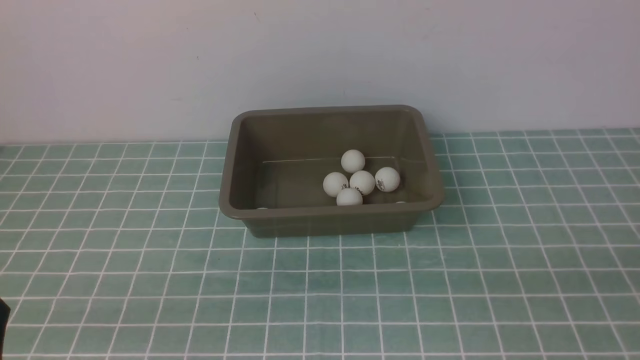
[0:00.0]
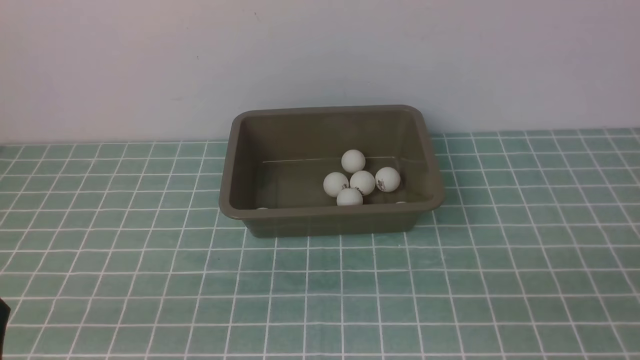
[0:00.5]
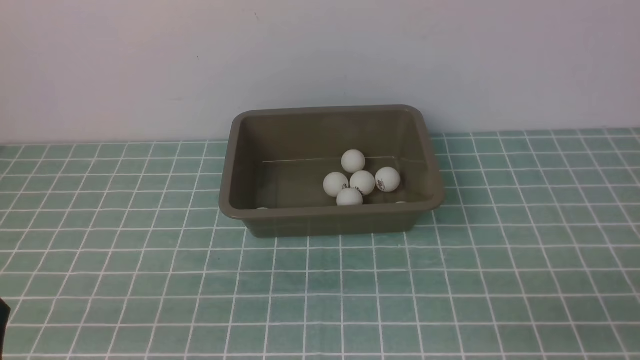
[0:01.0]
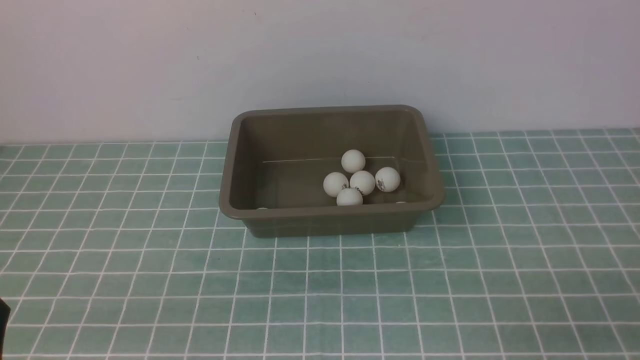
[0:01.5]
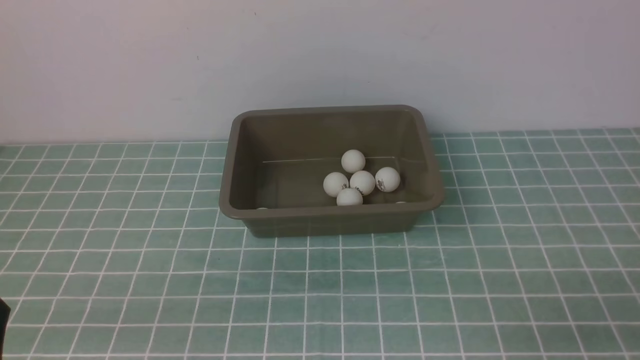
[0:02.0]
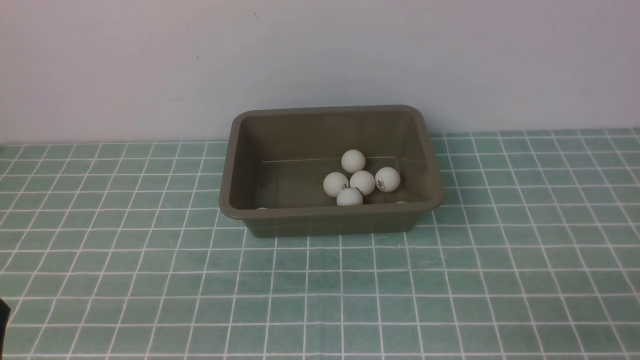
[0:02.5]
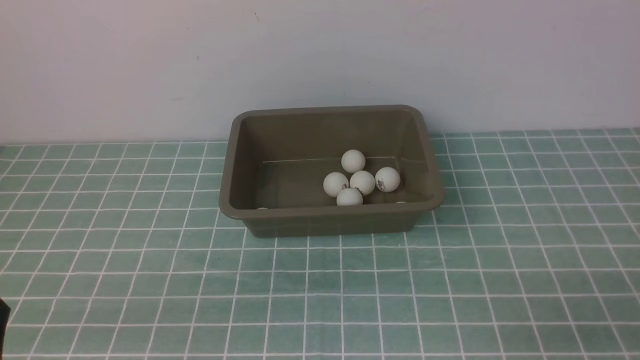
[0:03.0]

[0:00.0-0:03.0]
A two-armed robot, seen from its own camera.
0:01.5 to 0:03.0: Both grippers stay put.
